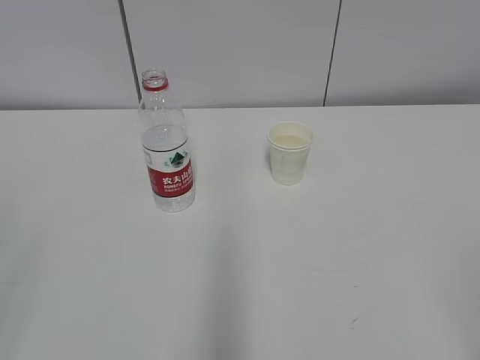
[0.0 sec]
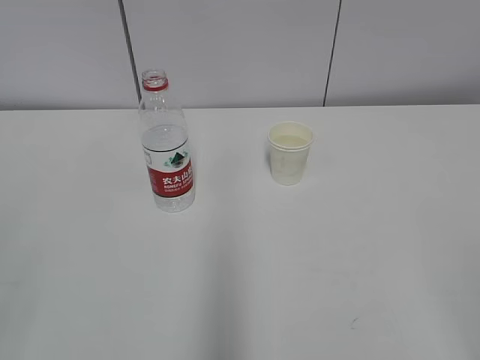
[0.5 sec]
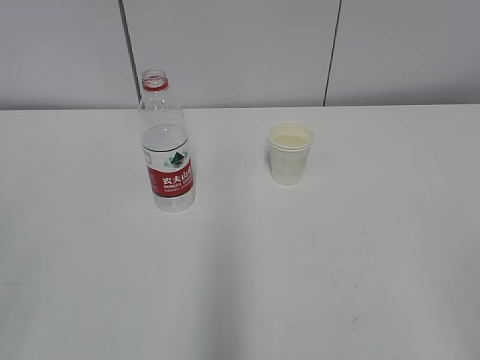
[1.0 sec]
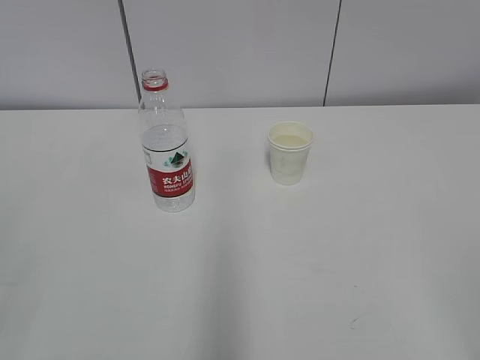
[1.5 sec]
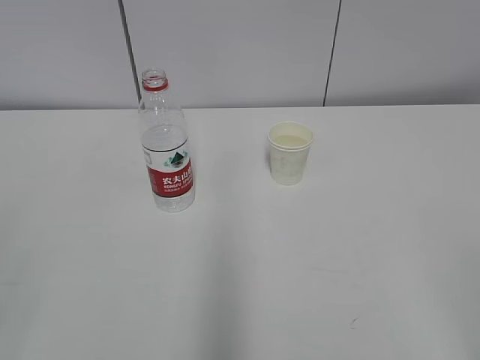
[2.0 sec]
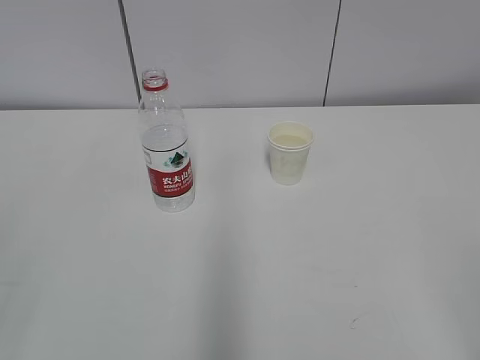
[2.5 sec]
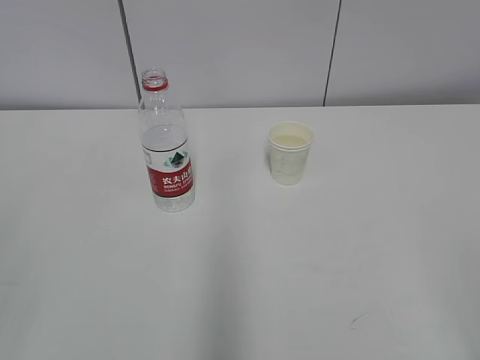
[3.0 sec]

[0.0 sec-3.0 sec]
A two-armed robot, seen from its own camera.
1.5 sec to 3.0 sec: Both grippers stay about where they are.
